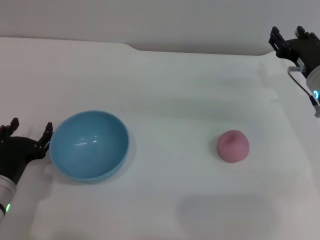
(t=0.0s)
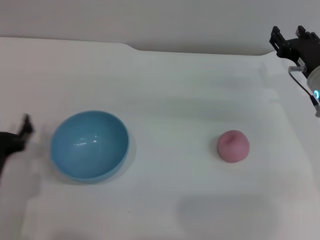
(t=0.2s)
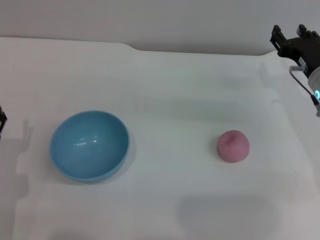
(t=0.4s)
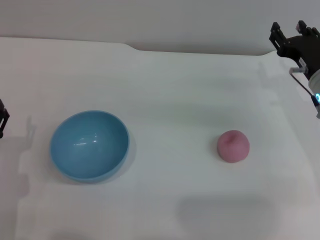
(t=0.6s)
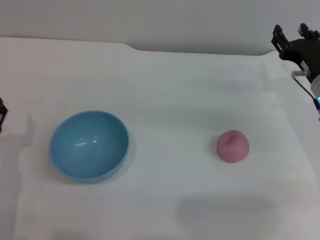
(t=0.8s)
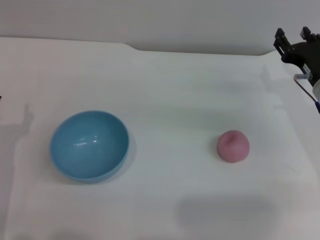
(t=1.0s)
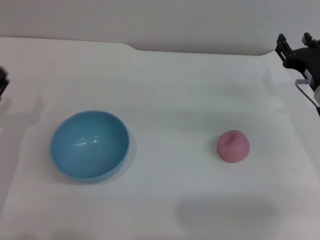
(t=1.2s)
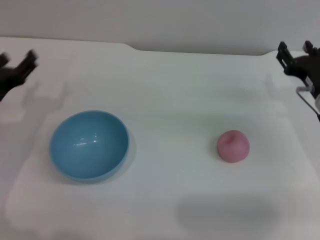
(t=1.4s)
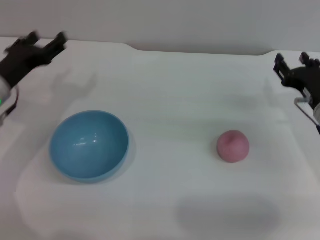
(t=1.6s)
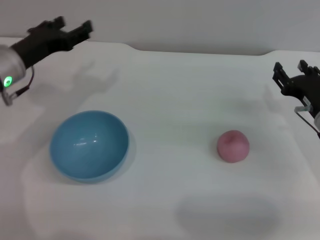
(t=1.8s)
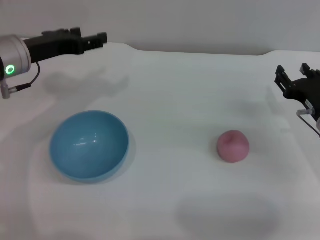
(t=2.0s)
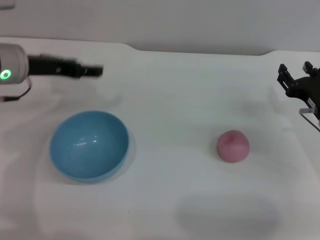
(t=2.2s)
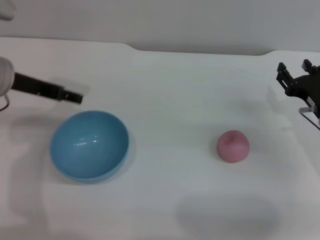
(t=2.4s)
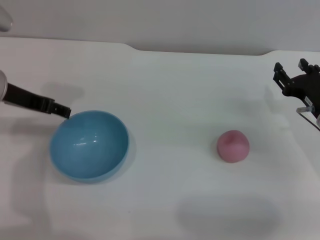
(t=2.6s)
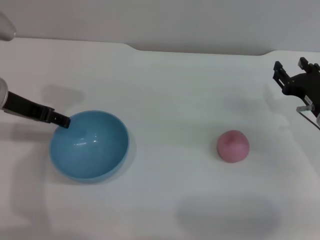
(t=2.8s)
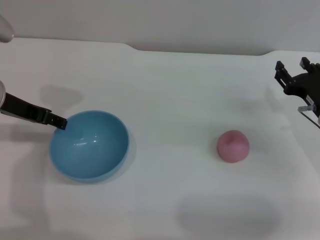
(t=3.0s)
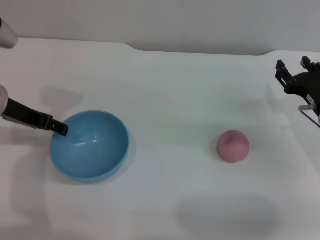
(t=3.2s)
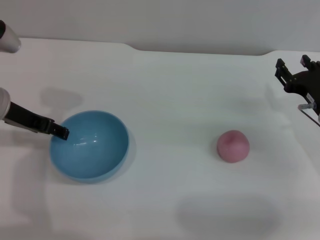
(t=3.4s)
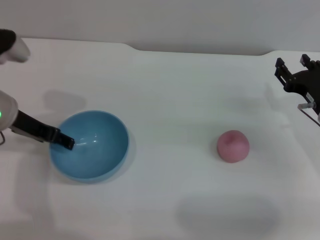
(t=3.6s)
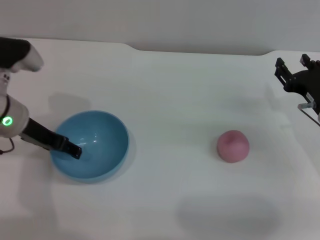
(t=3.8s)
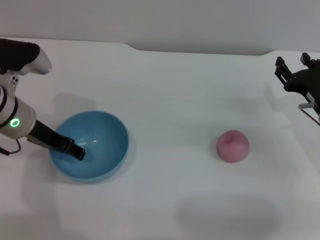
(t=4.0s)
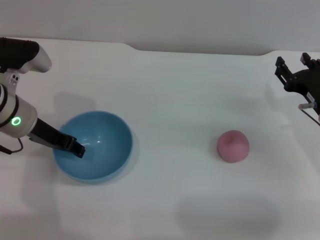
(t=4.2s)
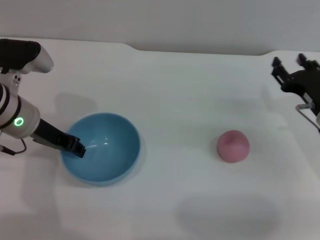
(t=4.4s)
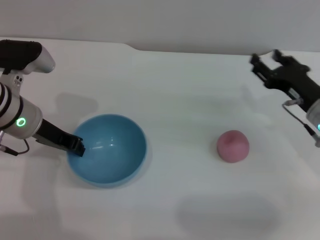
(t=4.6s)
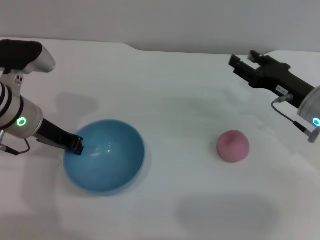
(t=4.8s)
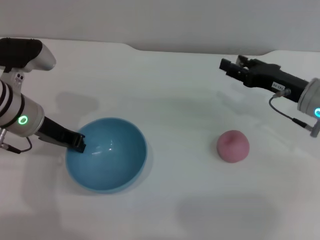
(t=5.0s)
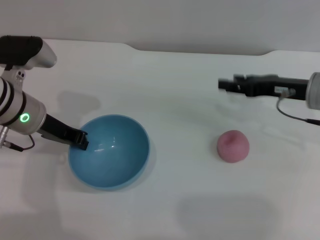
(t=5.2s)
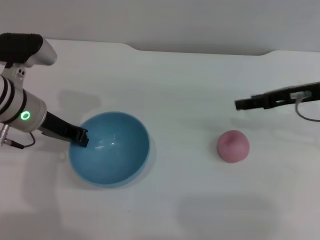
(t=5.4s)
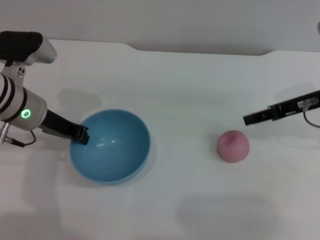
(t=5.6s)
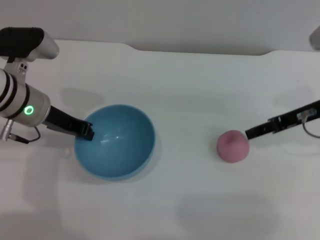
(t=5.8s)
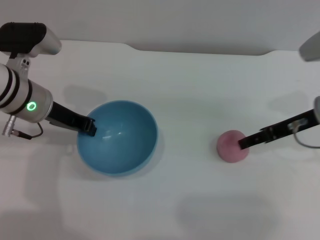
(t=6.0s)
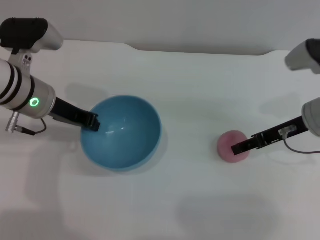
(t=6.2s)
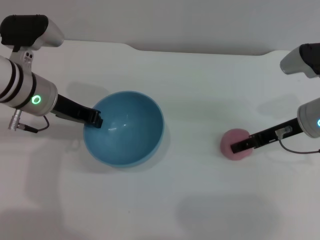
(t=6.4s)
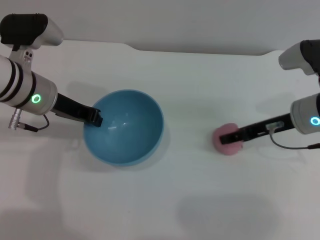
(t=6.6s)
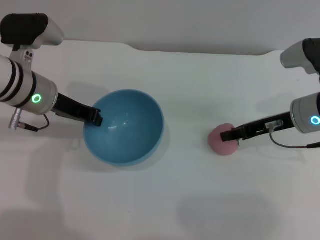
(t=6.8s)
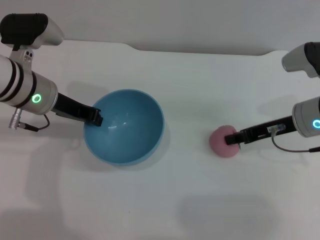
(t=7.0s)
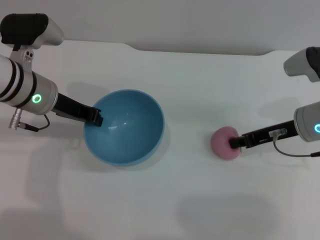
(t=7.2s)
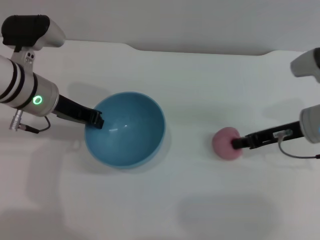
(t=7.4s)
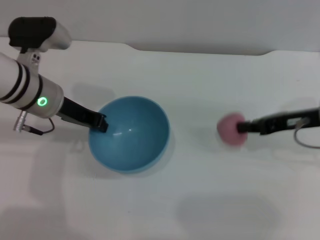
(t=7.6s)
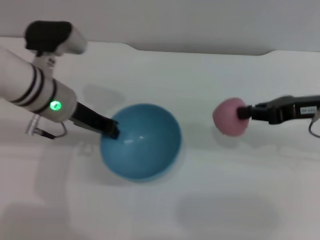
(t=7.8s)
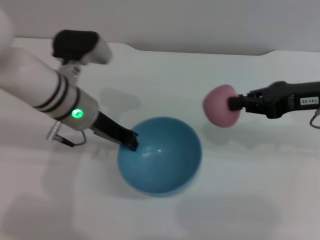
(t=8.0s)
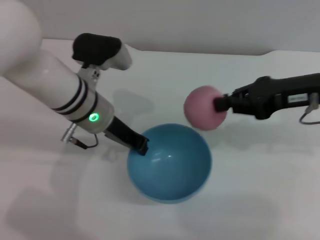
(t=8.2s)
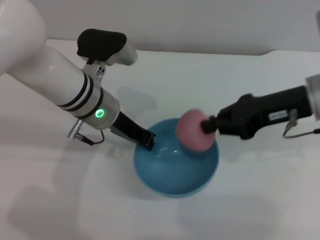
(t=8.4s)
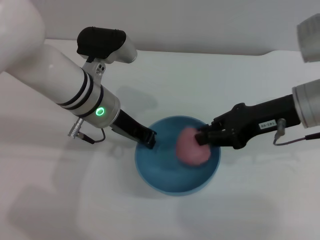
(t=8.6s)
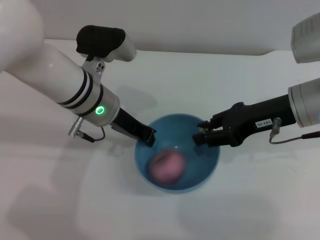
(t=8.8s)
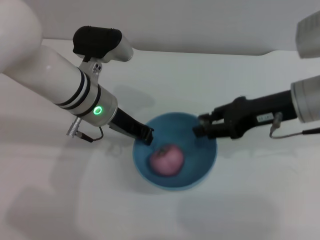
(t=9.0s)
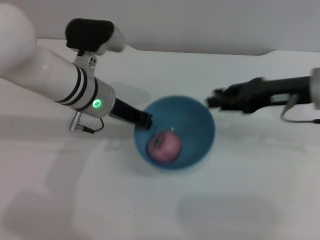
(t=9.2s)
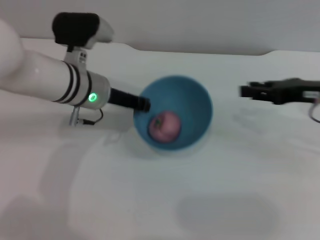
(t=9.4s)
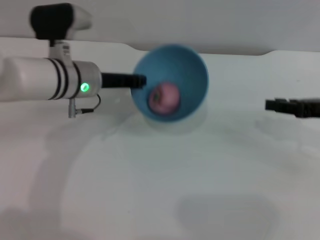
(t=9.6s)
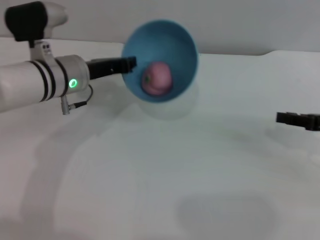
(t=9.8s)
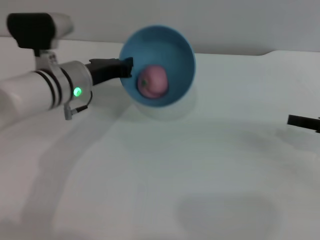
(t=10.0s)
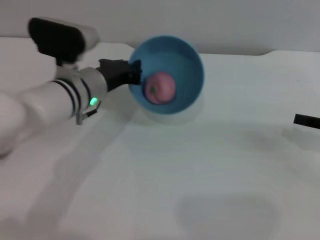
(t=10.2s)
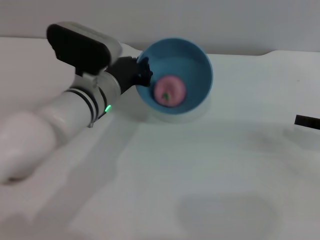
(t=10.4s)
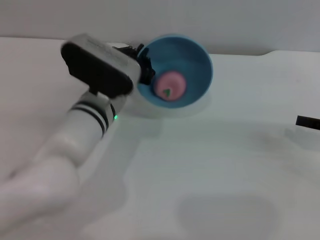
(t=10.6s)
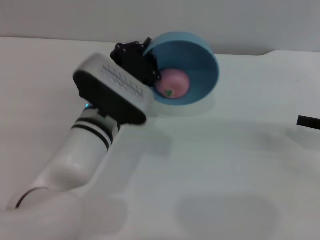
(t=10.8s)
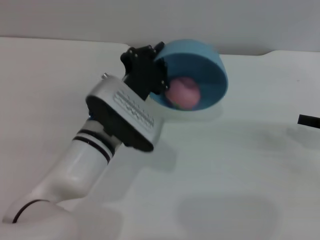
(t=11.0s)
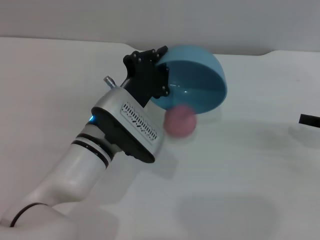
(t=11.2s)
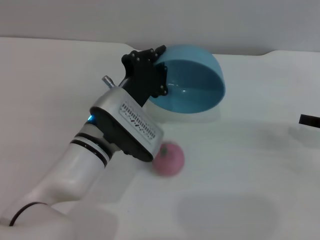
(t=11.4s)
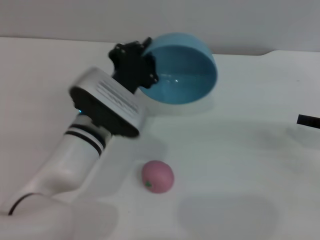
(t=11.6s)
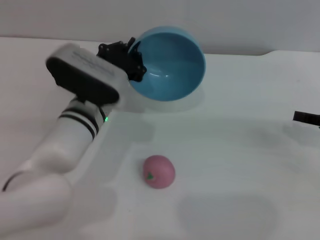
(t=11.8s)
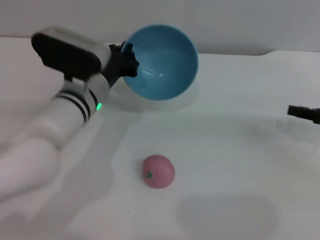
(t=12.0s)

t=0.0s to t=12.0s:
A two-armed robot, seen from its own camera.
Task of the whole recording: put the peach into the blue bowl and pour it out repeatedly.
Step, t=0.0s to t=5.8s: Pick up the bowl with the left gripper.
Step, t=6.0s to t=7.8s: Pick up the peach with the right gripper.
Step, t=8.0s to t=9.0s: Place the peach into the bowl.
Step, t=9.2s to t=11.6s: Pour the peach out of bowl.
t=0.0s to t=1.6s: The left gripper is displaced forward and upward by about 15 cm; the right gripper ends up approximately 5 cm from where it was.
t=1.6s to t=3.0s: The left gripper goes about 10 cm upward.
t=3.0s to t=4.4s: The left gripper ends up roughly 5 cm from where it was, and closes its fingers.
t=4.4s to t=6.0s: The left gripper closes its fingers, while the right gripper travels upward by roughly 5 cm.
t=6.0s to t=7.6s: The right gripper closes.
t=7.6s to t=9.0s: The left gripper shifts about 10 cm to the right. Meanwhile the right gripper travels to the left by about 5 cm, and opens.
t=9.0s to t=10.4s: The right gripper shifts roughly 15 cm to the right and downward.

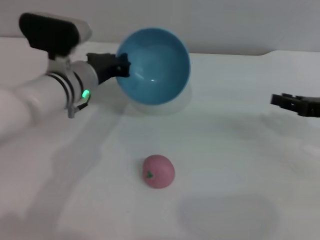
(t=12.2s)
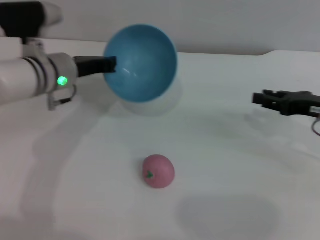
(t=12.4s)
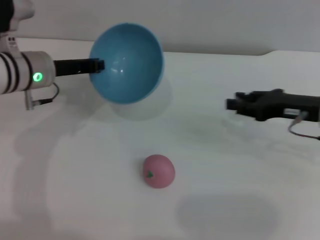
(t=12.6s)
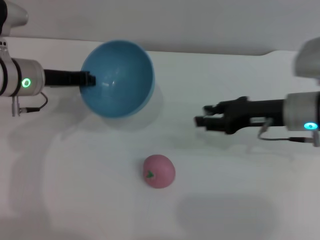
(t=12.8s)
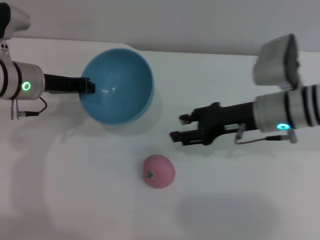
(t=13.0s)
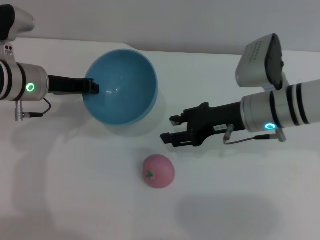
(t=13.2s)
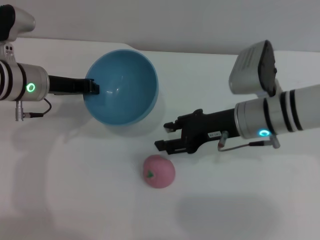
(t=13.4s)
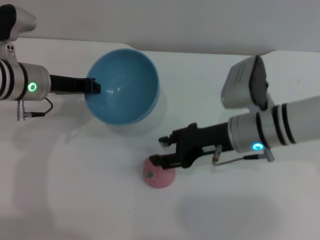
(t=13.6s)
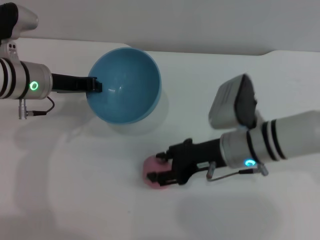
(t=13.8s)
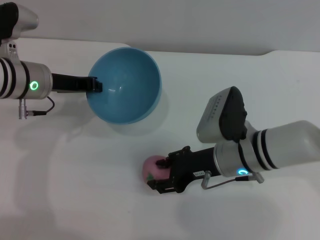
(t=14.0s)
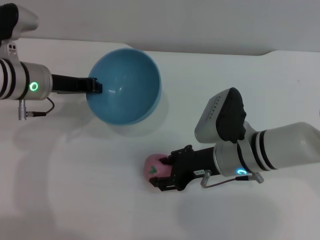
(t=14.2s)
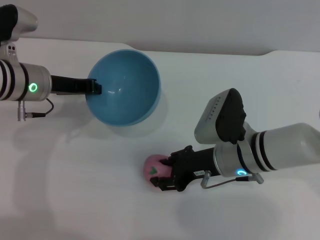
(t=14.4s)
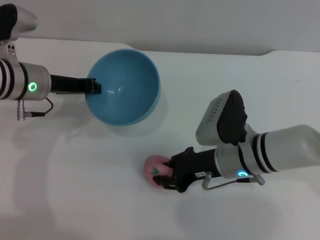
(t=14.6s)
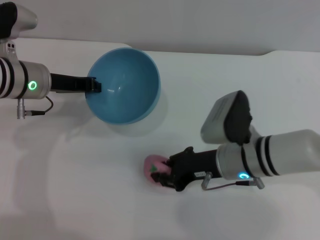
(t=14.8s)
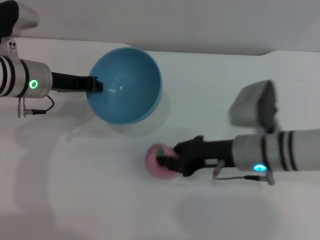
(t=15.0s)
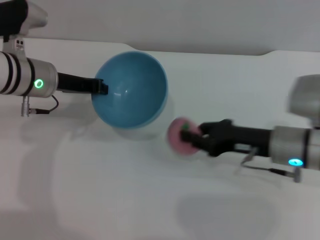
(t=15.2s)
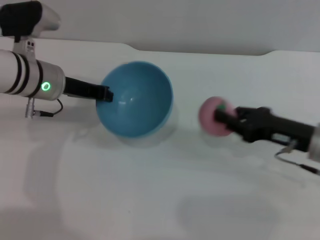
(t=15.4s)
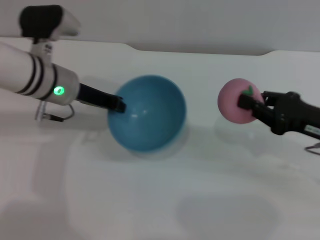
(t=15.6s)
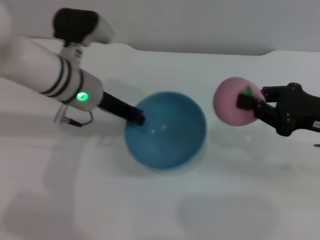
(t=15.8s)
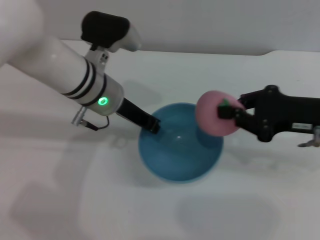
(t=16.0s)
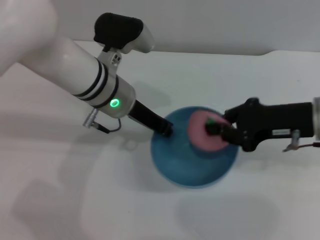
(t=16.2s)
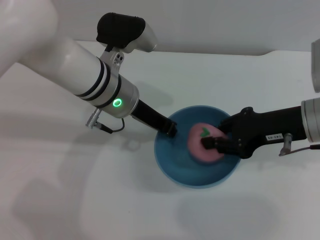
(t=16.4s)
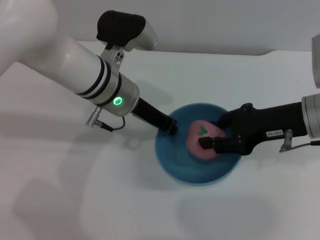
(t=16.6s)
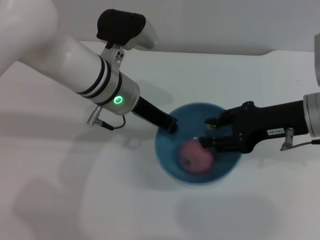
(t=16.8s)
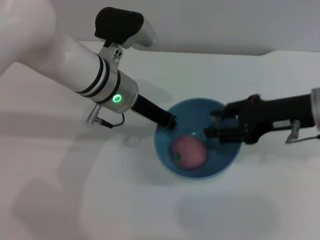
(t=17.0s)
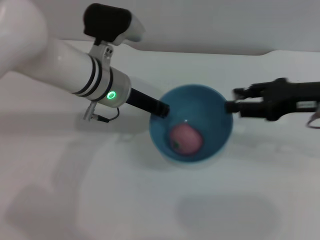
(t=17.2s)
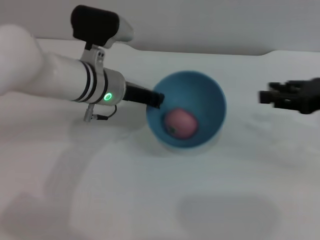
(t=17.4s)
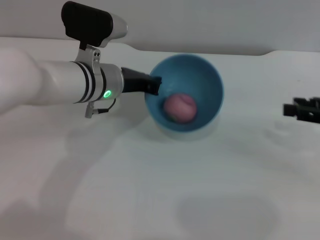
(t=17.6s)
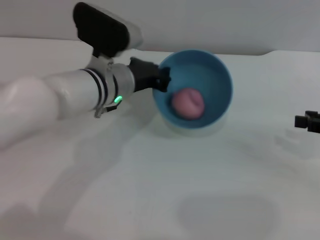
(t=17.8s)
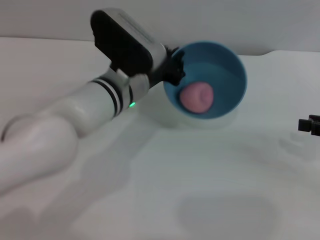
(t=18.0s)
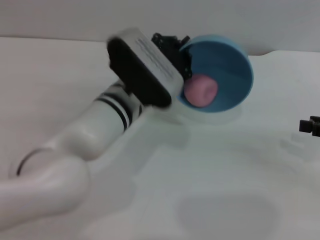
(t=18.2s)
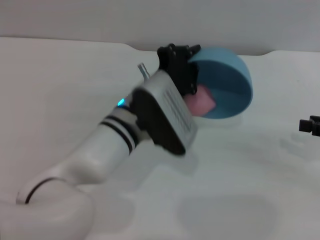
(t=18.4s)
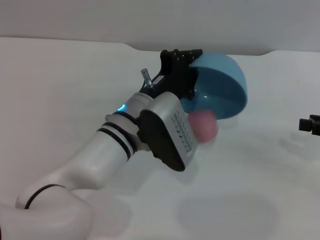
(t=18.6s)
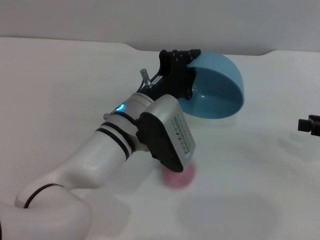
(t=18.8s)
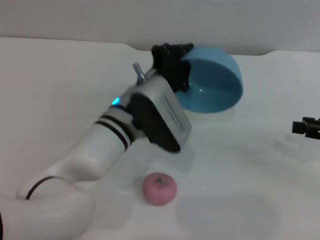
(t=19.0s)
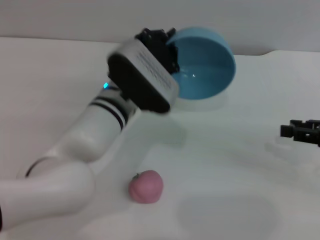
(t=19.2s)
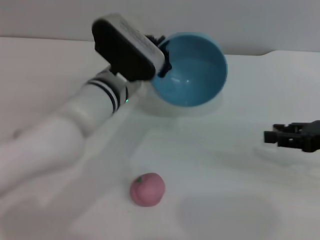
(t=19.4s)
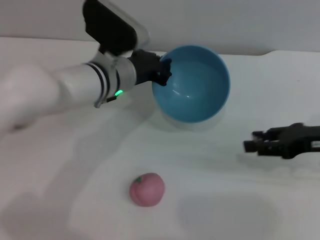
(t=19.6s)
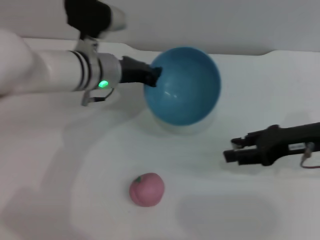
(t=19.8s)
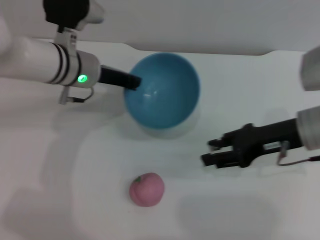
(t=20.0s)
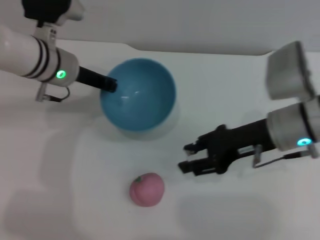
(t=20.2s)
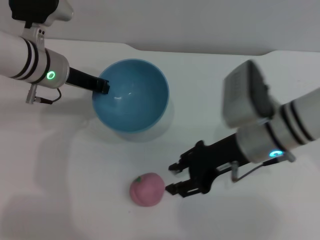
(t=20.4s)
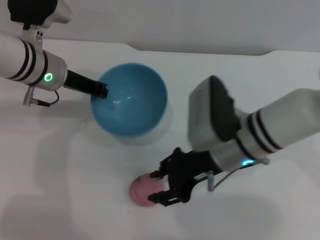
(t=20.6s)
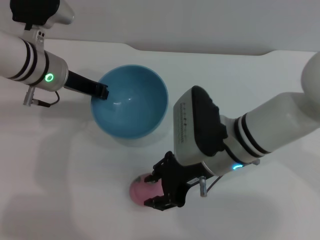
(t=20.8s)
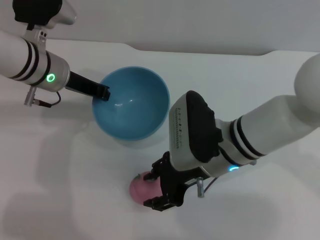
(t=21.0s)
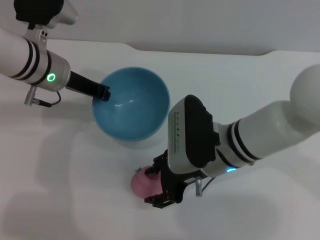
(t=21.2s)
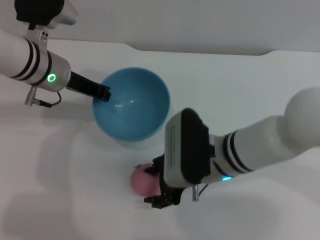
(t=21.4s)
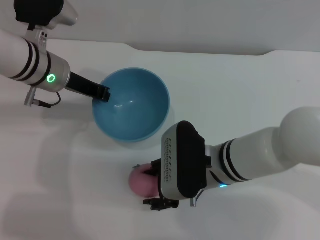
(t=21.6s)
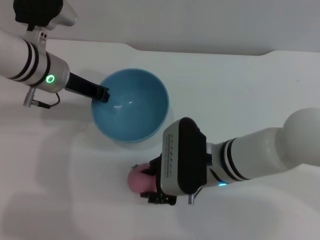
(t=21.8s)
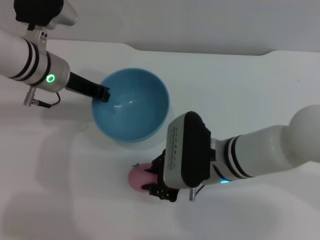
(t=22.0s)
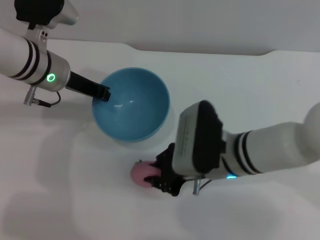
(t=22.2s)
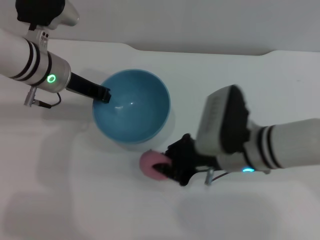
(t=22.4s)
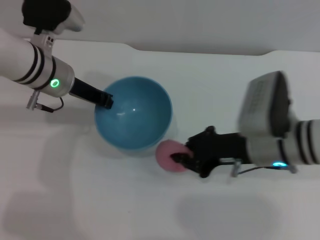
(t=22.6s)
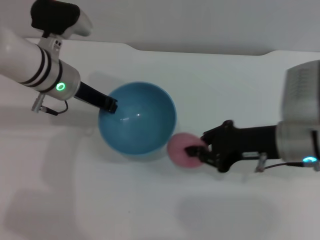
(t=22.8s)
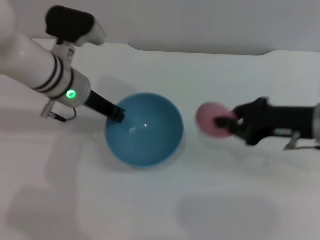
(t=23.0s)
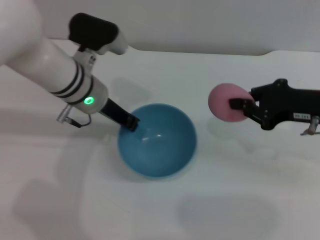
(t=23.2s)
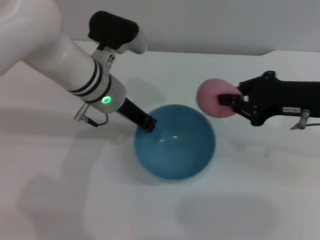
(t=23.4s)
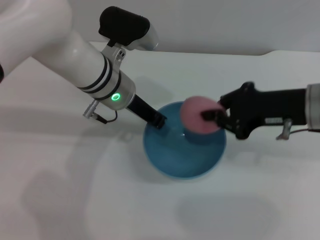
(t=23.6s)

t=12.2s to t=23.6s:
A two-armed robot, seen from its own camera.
Task of the whole recording: put the peach into the blue bowl and pour it out repeatedly.
Step, t=12.2s to t=15.2s: Pick up the peach with the right gripper.
Step, t=15.4s to t=17.0s: Place the peach into the bowl.
Step, t=17.2s to t=18.8s: Pour the peach out of bowl.
Step, t=19.0s to t=22.8s: Pick up the peach with the right gripper.
t=12.2s to t=13.6s: The left gripper heads to the left, covering approximately 10 cm. The right gripper is displaced to the left by about 20 cm.
t=13.6s to t=15.0s: The right gripper closes up.
t=15.0s to t=16.4s: The left gripper shifts approximately 15 cm to the right; the right gripper moves upward and to the right, some 10 cm, and closes its fingers.
t=16.4s to t=17.8s: The right gripper moves to the right, some 15 cm, and opens.
t=19.4s to t=20.8s: The right gripper goes roughly 25 cm to the left; the left gripper shifts some 10 cm to the left.
t=20.8s to t=22.2s: The right gripper closes its fingers.
t=22.2s to t=23.6s: The left gripper shifts about 10 cm to the right; the right gripper moves to the right and upward, some 15 cm, and closes up.
